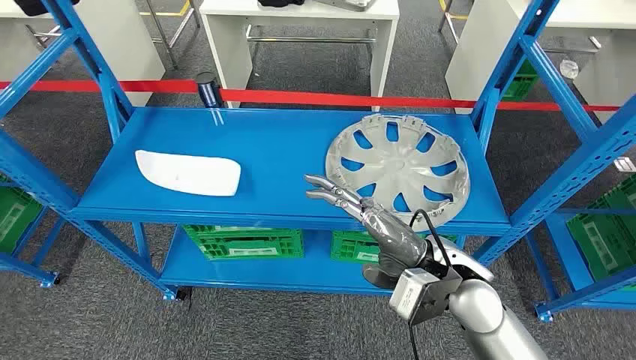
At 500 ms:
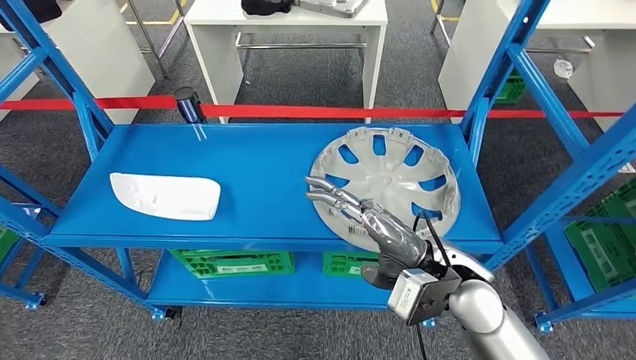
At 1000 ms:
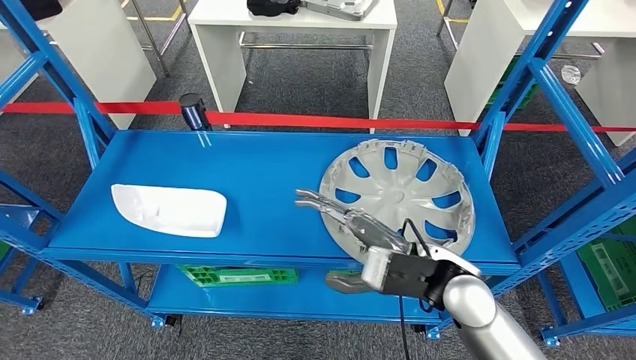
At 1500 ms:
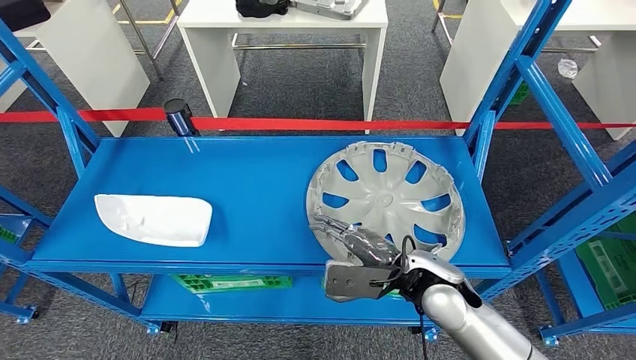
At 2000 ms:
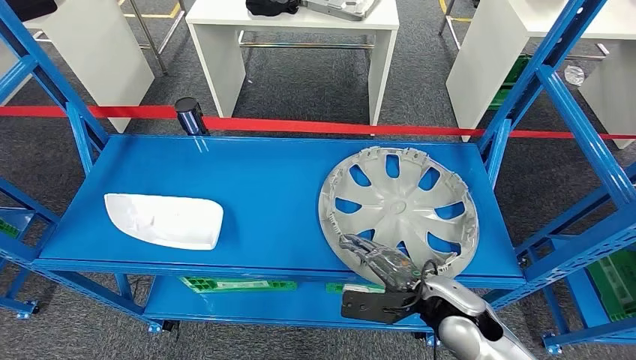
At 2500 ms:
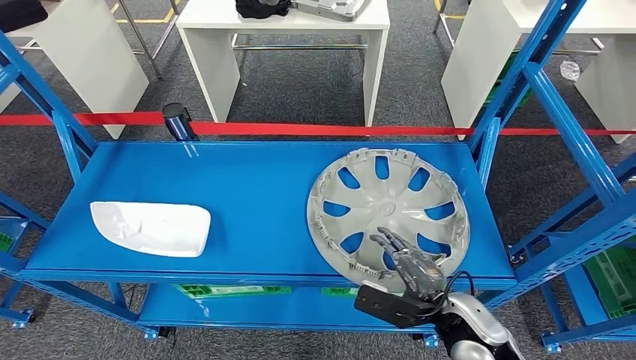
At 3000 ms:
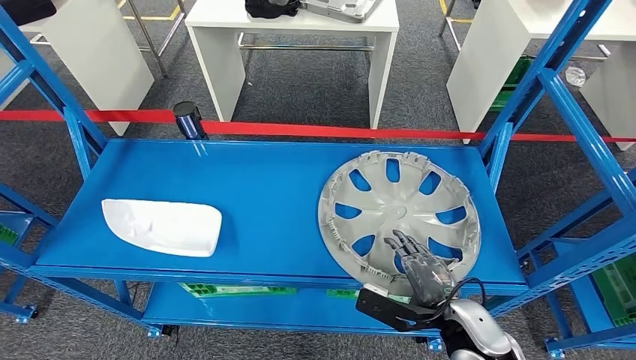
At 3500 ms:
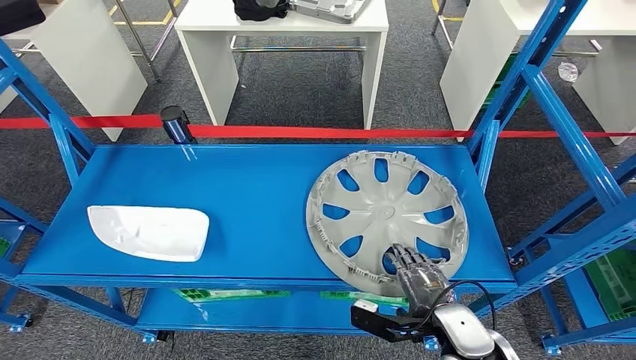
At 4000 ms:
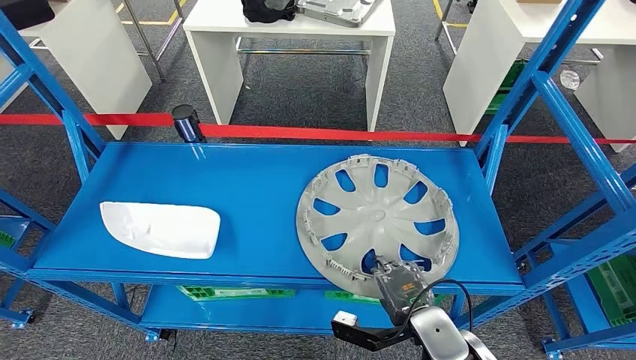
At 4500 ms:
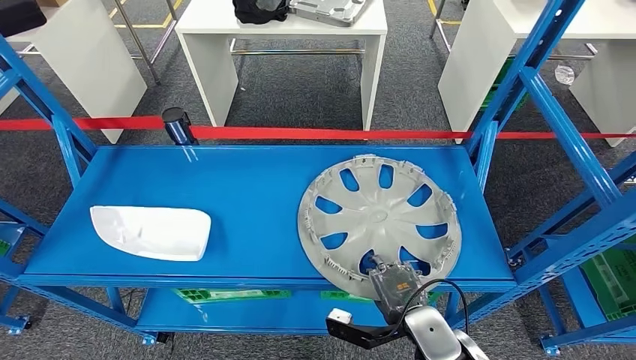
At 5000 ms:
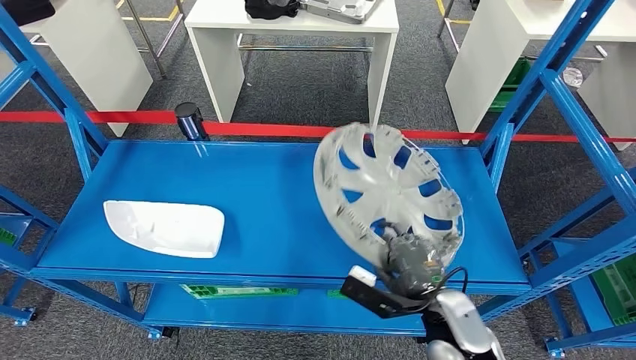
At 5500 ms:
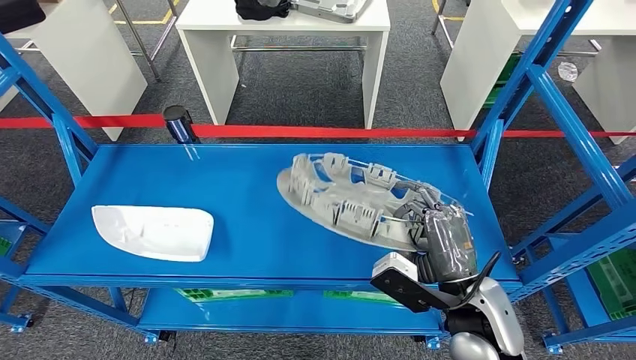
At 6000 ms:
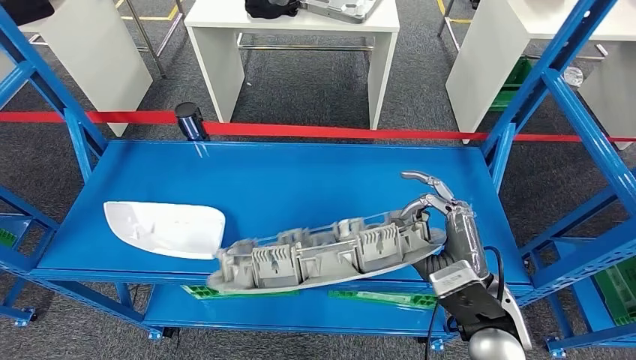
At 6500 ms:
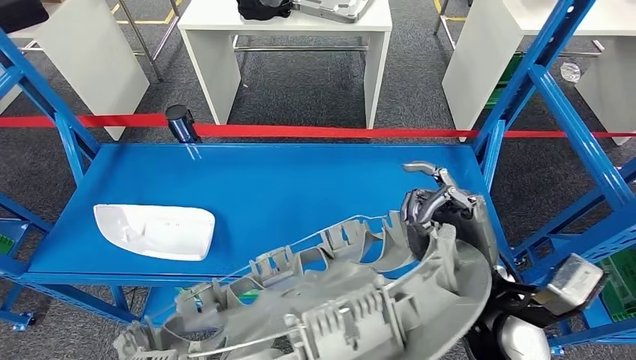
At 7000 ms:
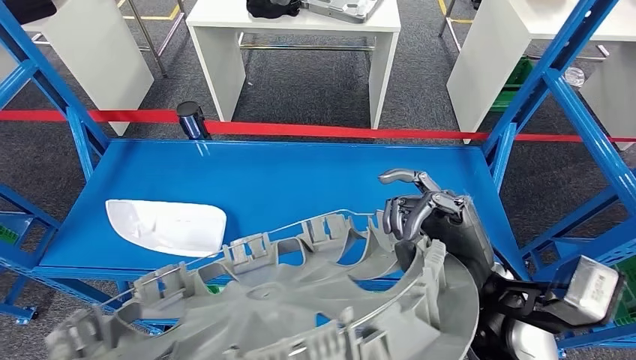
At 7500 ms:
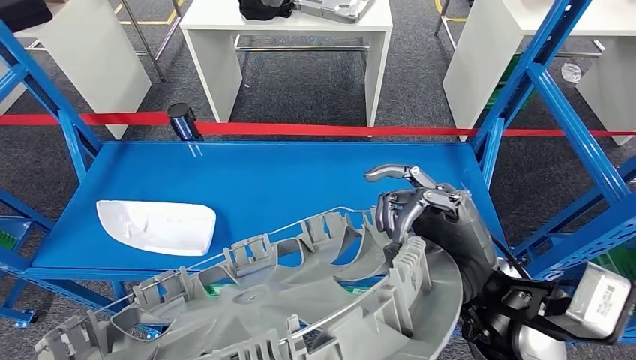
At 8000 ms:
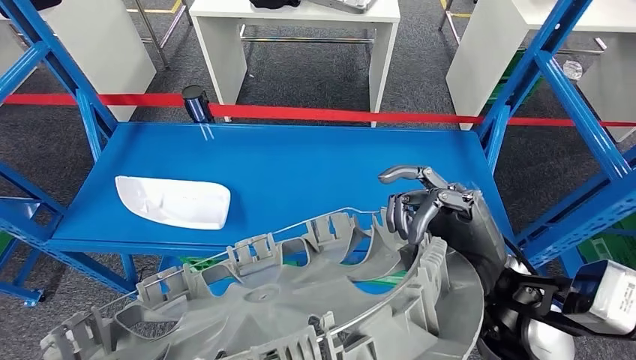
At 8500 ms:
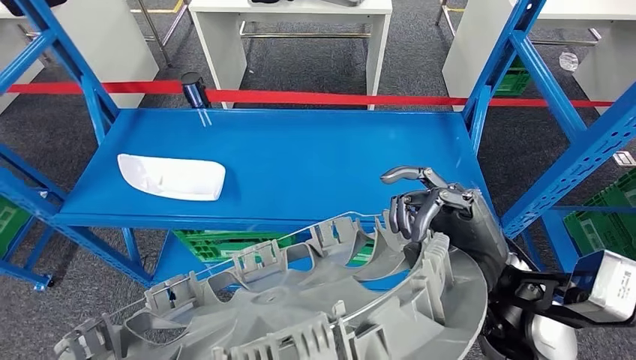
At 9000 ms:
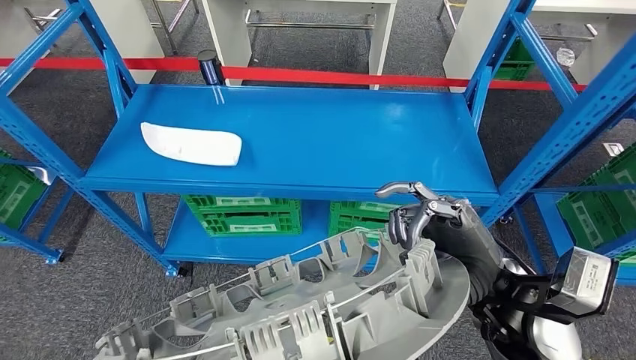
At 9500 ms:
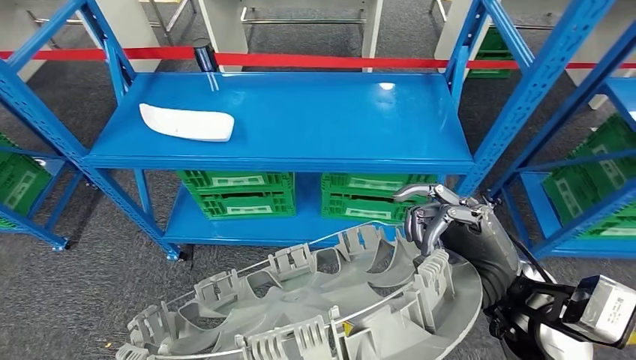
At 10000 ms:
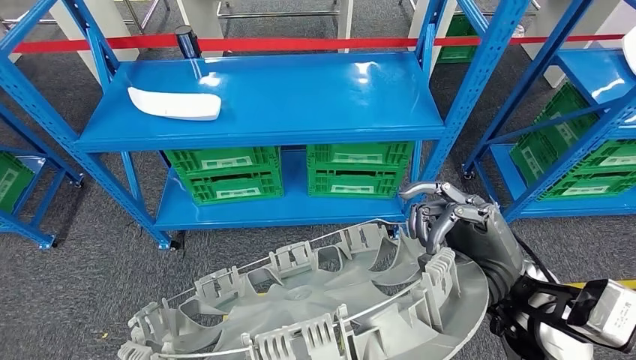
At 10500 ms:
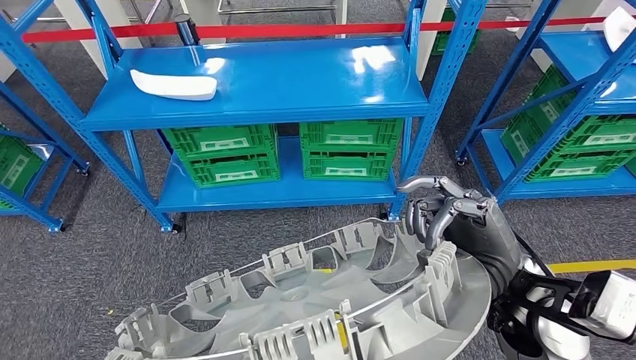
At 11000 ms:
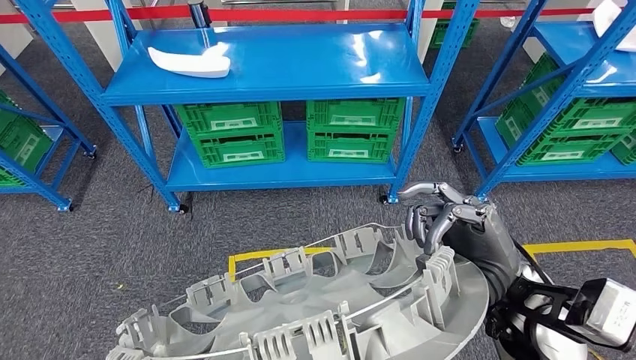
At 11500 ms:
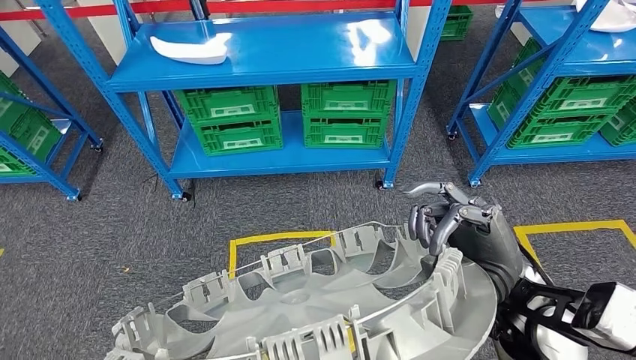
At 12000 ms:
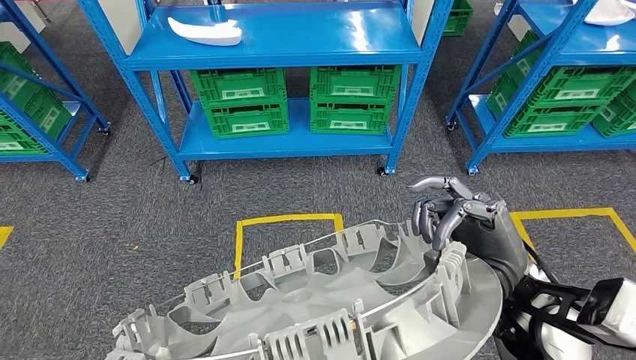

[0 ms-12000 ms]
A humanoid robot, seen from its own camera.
Step, 0 ms to 6000 ms: Pick up the small component from the shelf.

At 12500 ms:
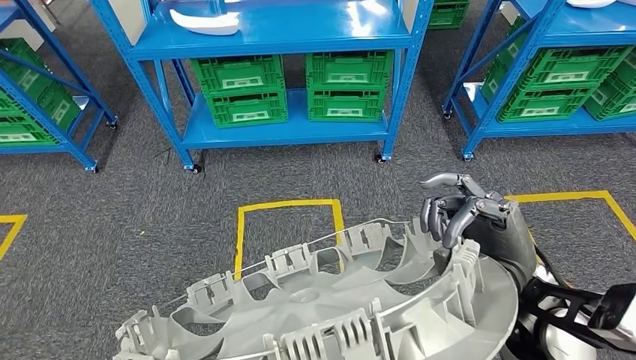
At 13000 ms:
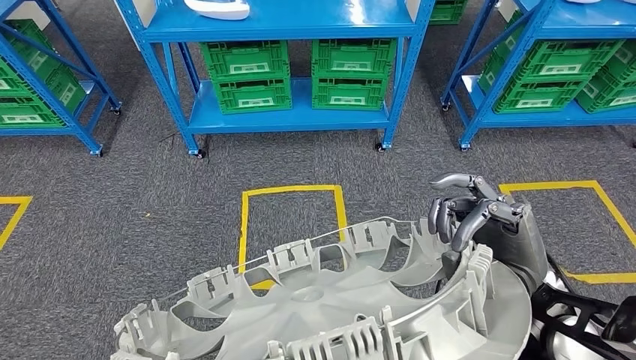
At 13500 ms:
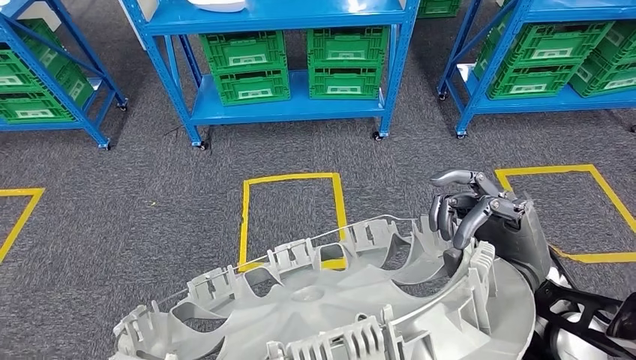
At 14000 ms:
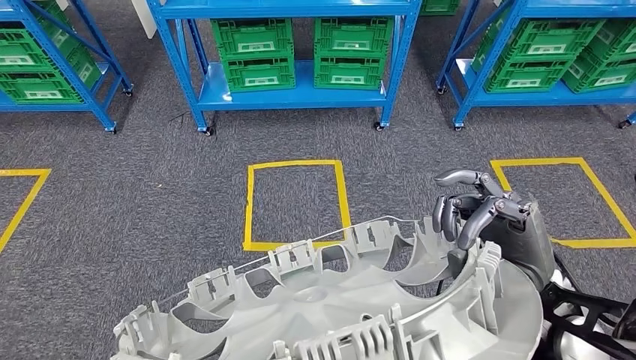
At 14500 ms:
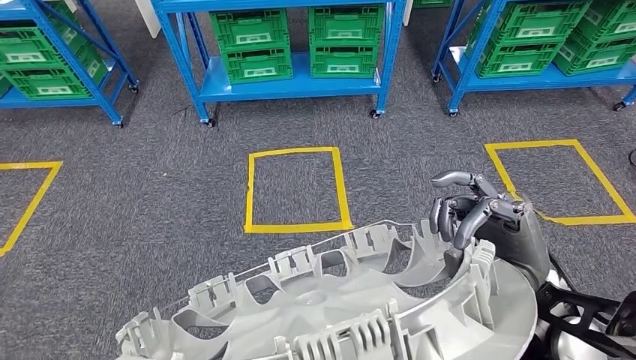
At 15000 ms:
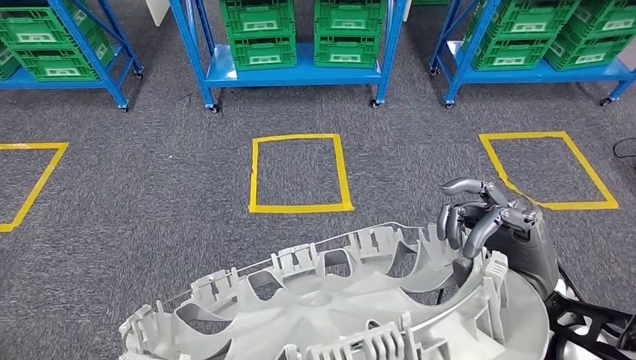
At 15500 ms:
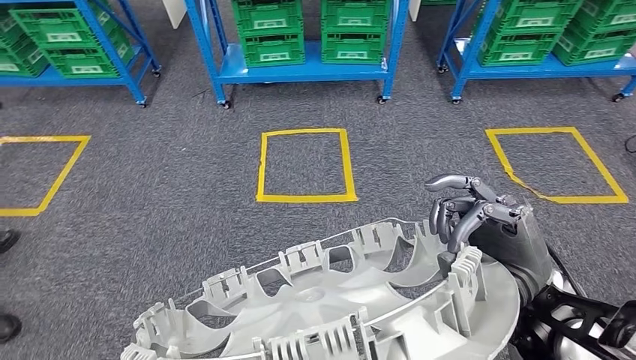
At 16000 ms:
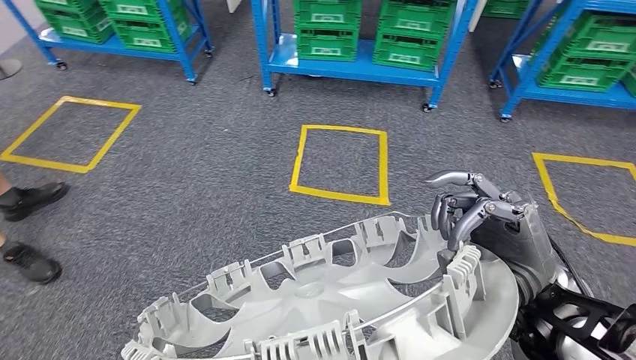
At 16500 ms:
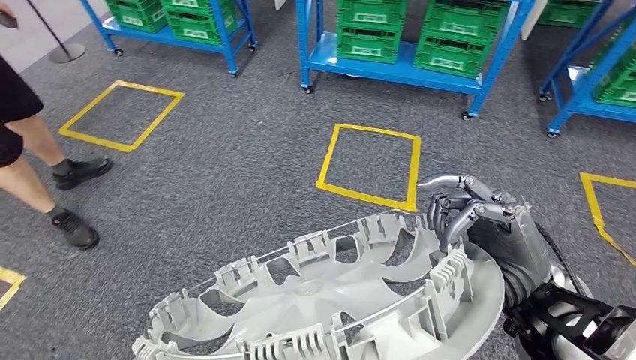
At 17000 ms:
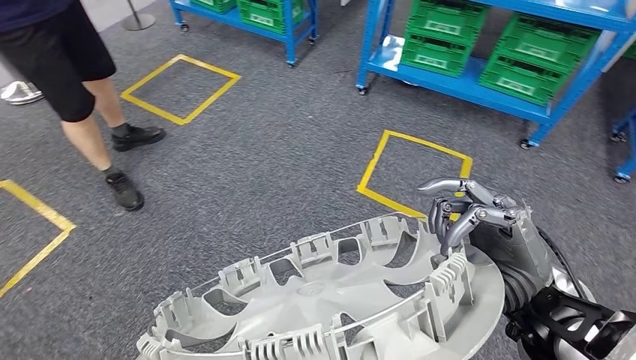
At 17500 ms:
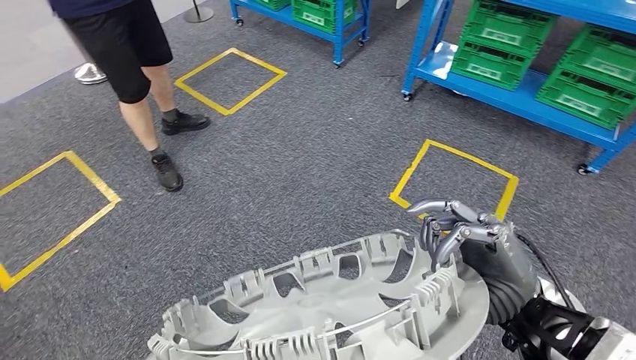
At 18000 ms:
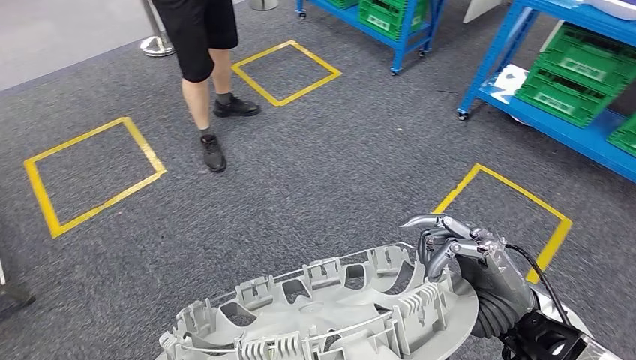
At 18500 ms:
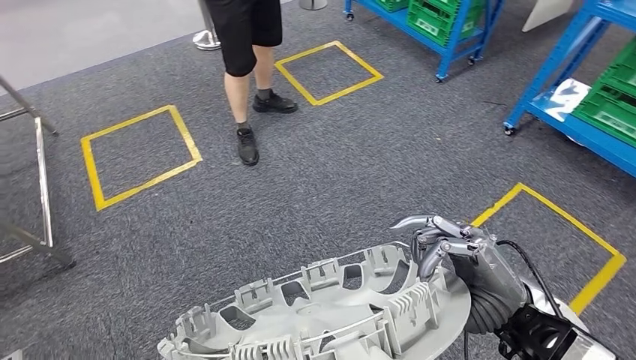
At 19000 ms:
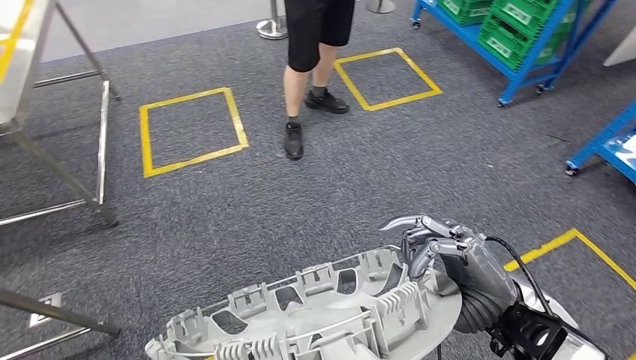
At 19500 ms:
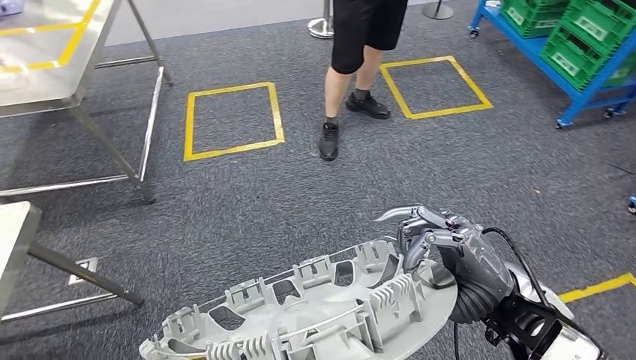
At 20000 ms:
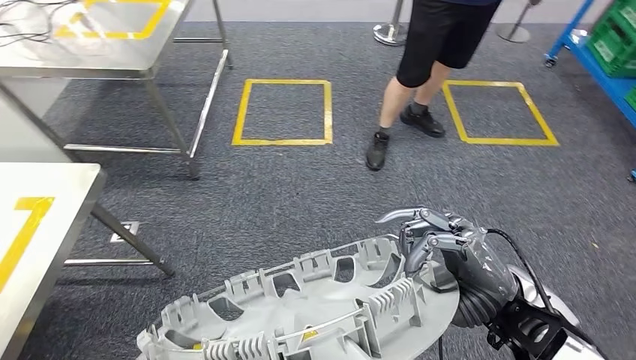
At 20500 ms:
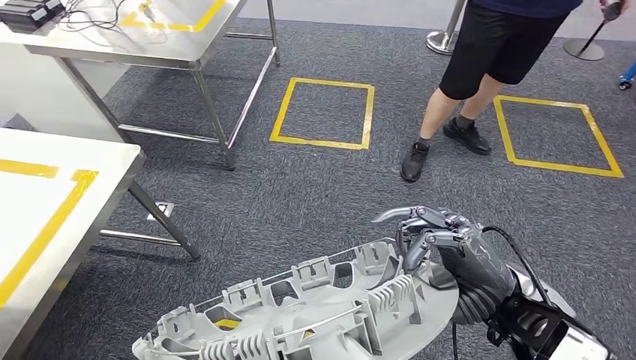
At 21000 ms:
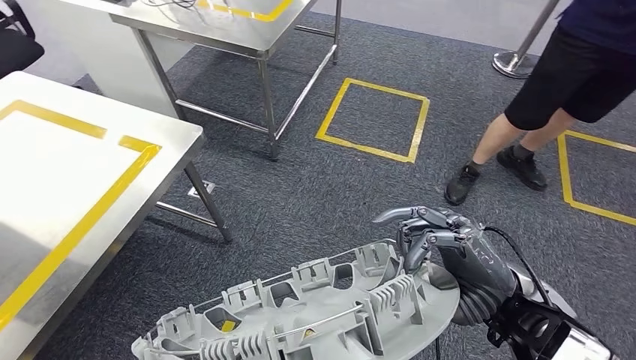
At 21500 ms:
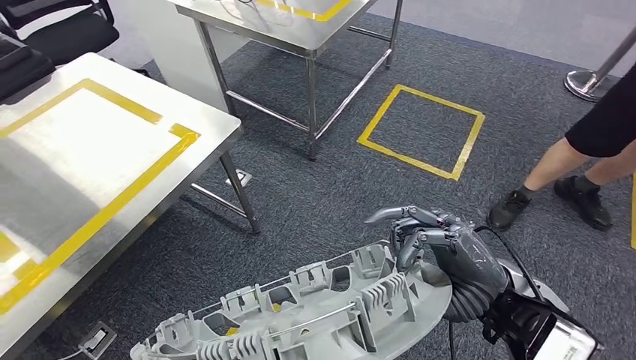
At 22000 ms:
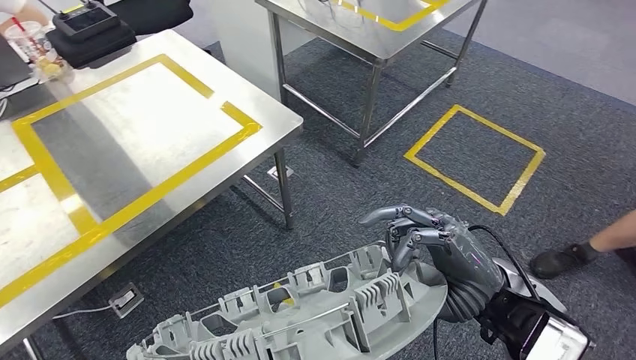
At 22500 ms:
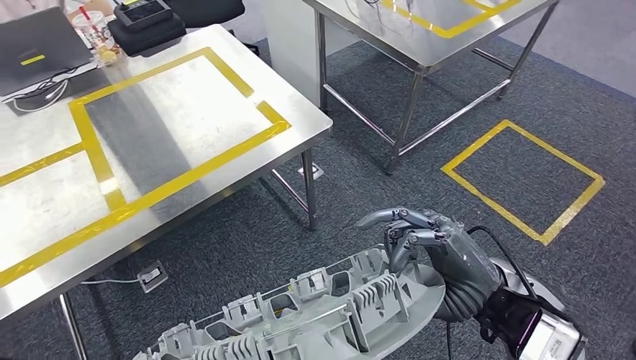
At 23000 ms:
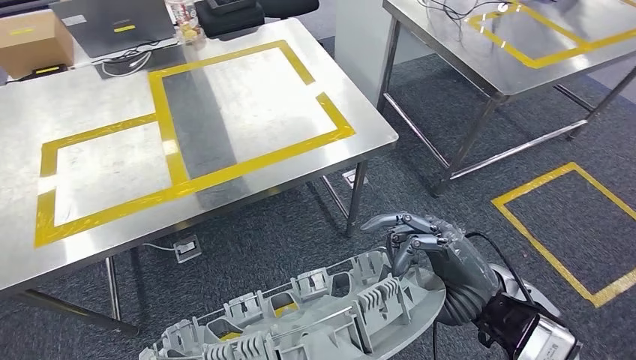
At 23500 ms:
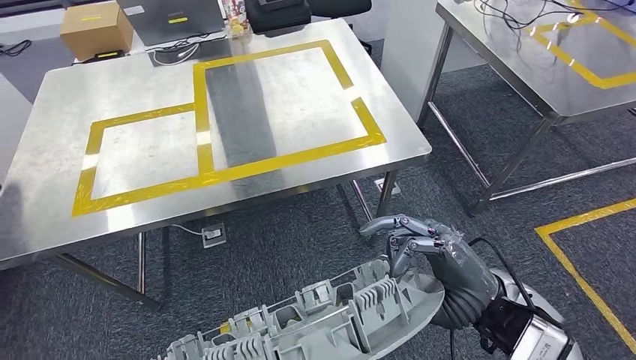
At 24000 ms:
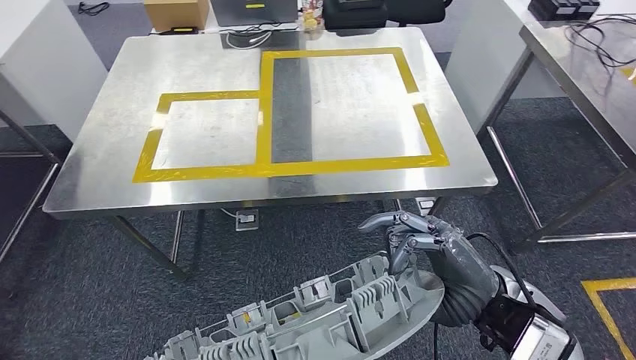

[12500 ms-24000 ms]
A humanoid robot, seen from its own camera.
Step, 12500 ms to 22500 ms: Move the small component to the workbench.
